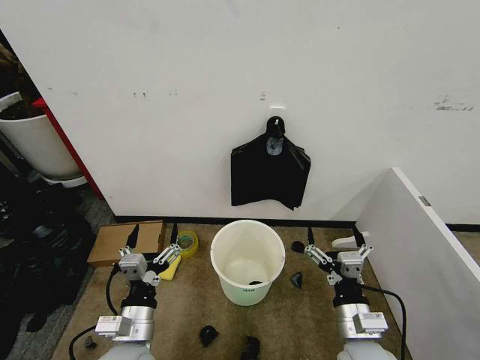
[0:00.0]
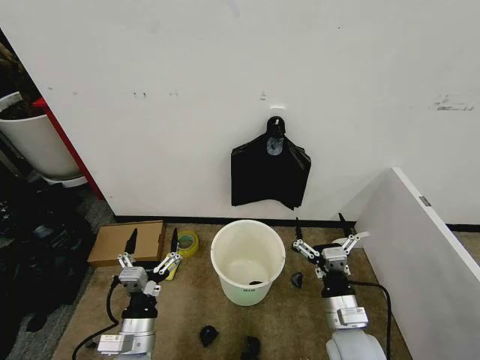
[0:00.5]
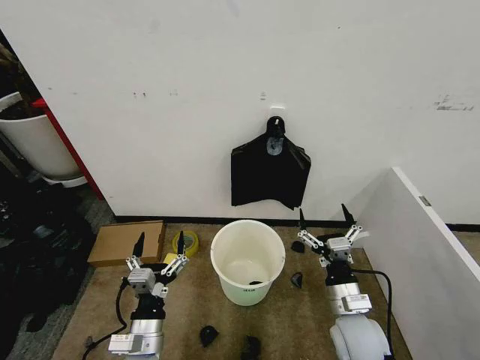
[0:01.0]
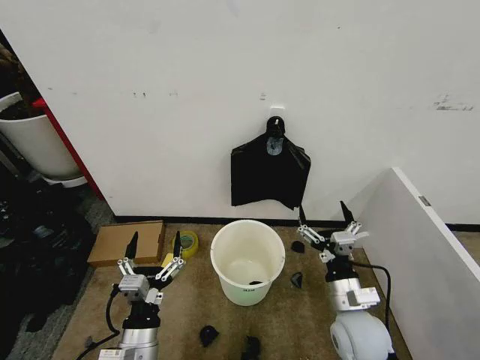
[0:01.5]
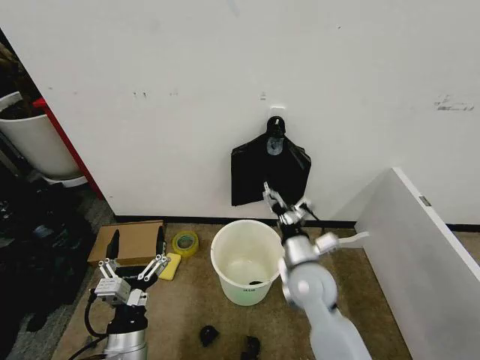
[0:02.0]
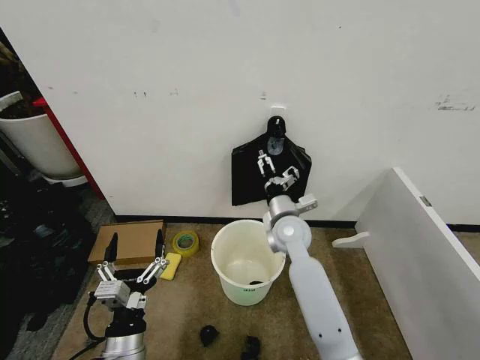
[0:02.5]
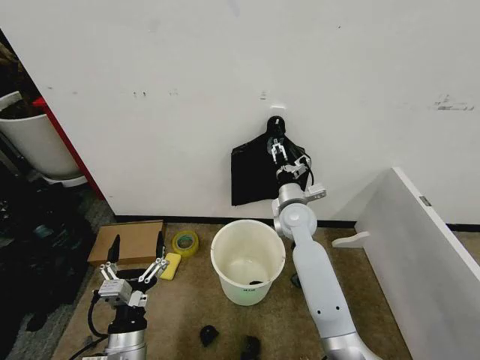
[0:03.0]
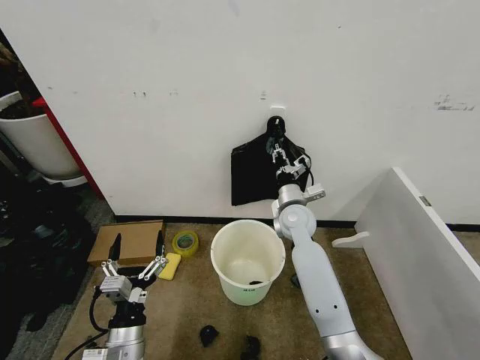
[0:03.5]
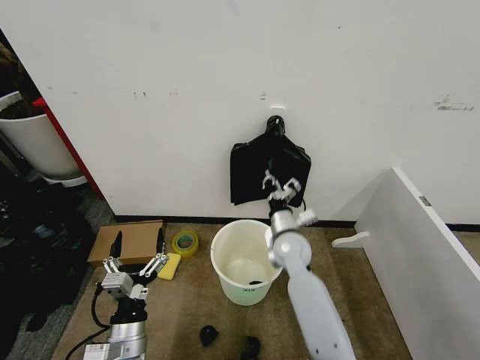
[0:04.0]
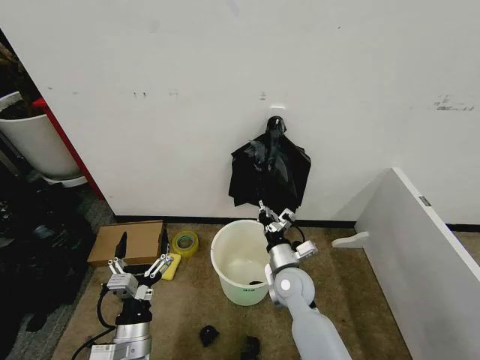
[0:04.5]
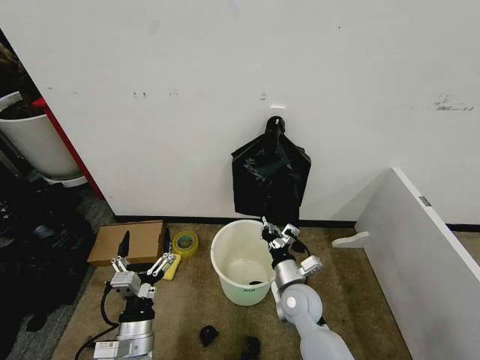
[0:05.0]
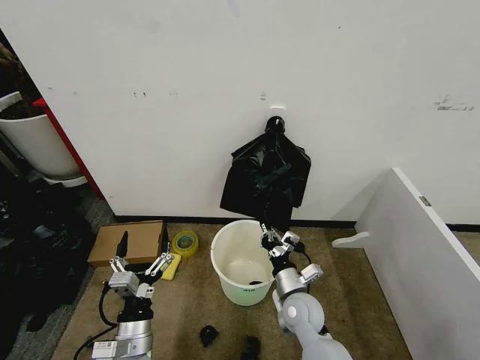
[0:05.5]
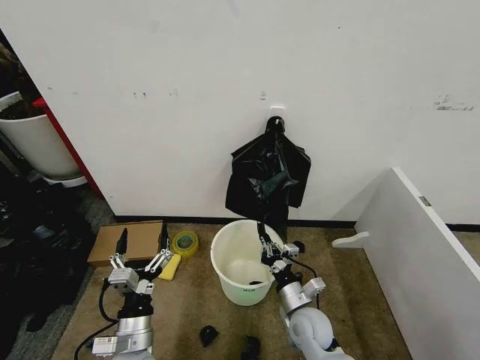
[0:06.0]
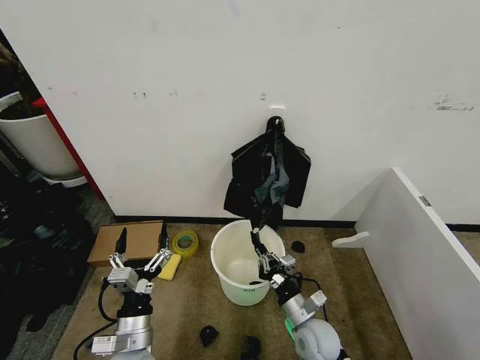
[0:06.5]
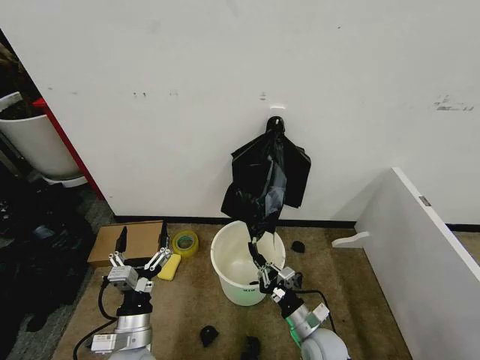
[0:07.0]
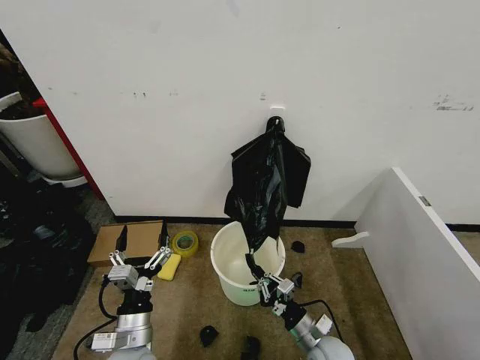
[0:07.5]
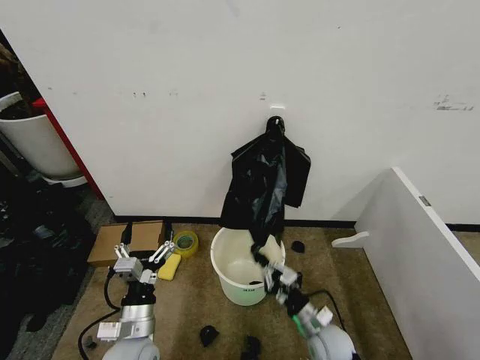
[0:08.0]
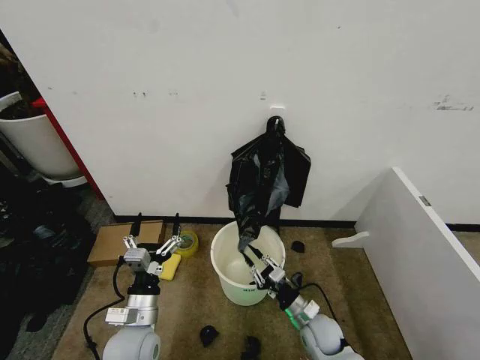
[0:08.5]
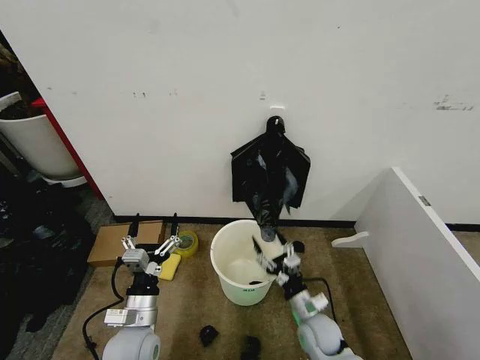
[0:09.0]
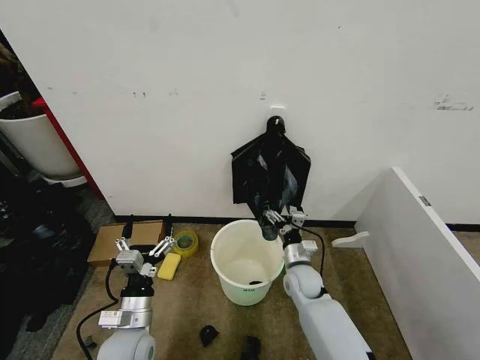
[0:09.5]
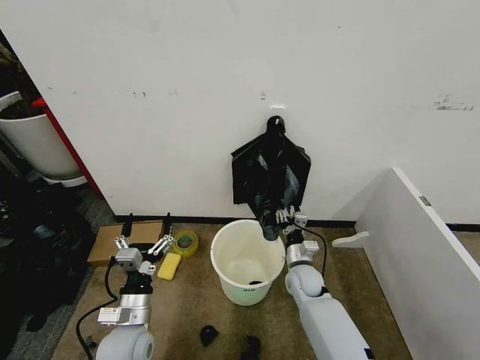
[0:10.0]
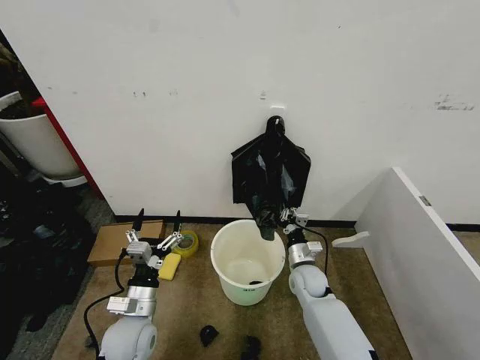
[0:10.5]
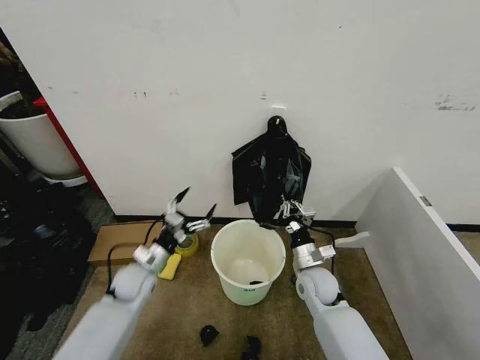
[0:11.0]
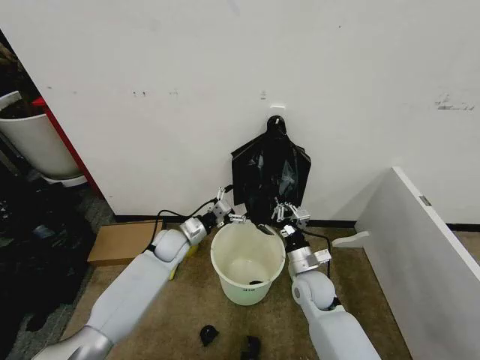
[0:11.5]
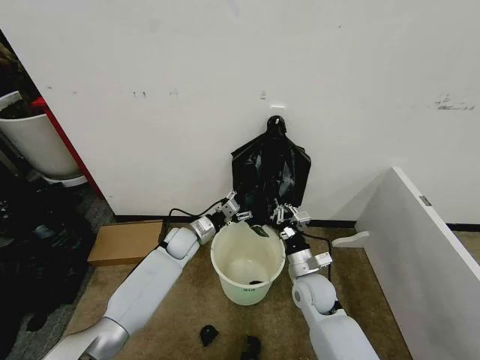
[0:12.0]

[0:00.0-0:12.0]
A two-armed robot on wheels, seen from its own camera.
Task of the whole recording: Place the garbage bag over the trash bin.
0:02.0 to 0:04.0: The right gripper heads forward, covering some 10 cm, and closes its fingers.
0:04.0 to 0:06.0: The right gripper goes about 20 cm backward and downward.
0:06.0 to 0:08.0: The right gripper shifts roughly 5 cm to the right.
0:08.0 to 0:10.0: The right gripper goes some 15 cm forward, and opens up.
0:10.0 to 0:12.0: The left gripper shifts about 25 cm forward. Meanwhile the right gripper is displaced upward and backward by about 10 cm, and closes.

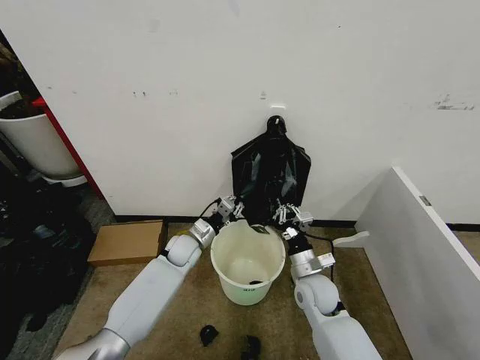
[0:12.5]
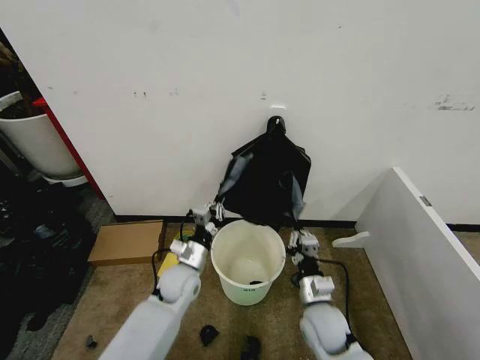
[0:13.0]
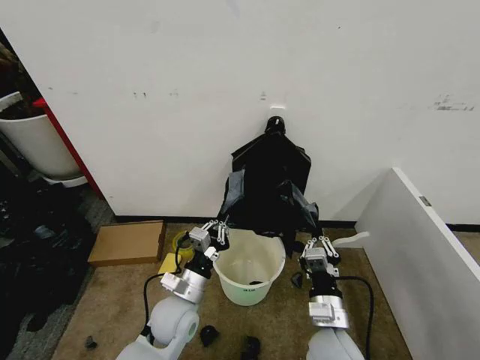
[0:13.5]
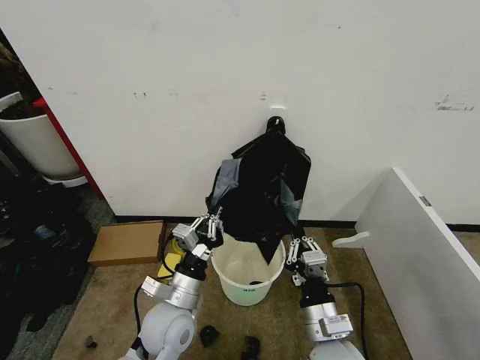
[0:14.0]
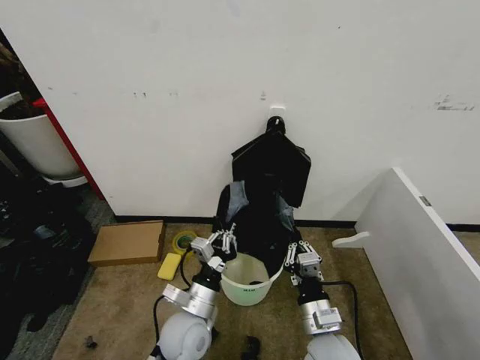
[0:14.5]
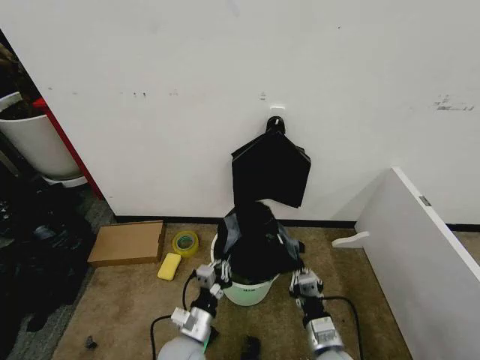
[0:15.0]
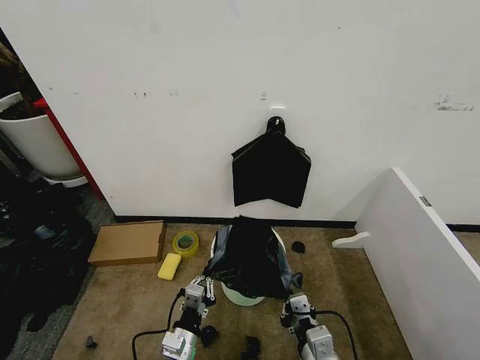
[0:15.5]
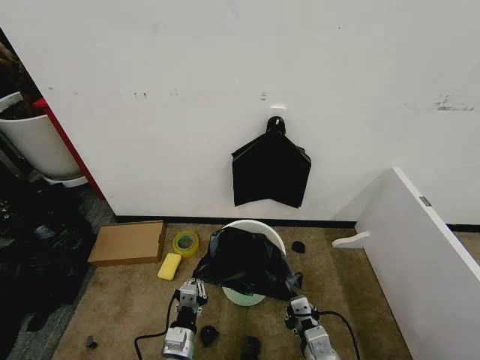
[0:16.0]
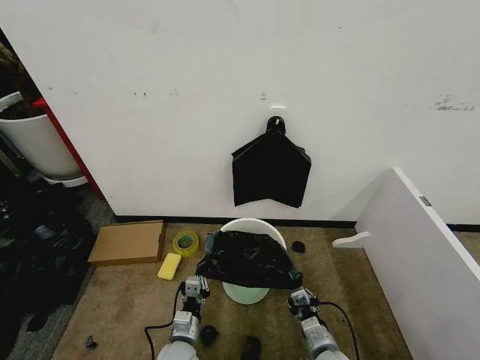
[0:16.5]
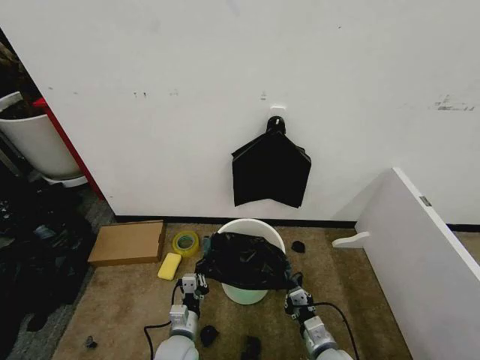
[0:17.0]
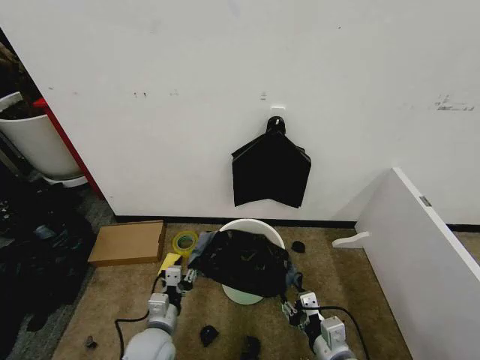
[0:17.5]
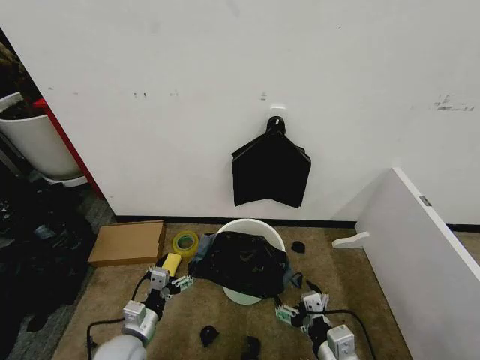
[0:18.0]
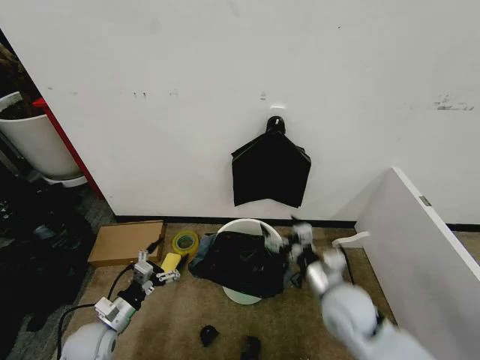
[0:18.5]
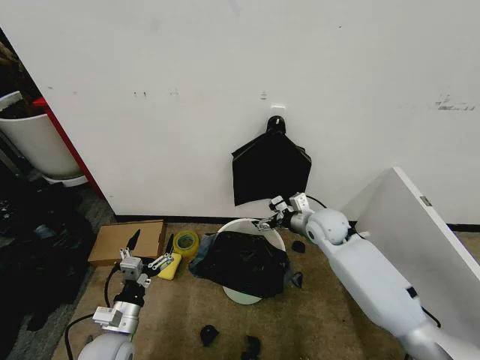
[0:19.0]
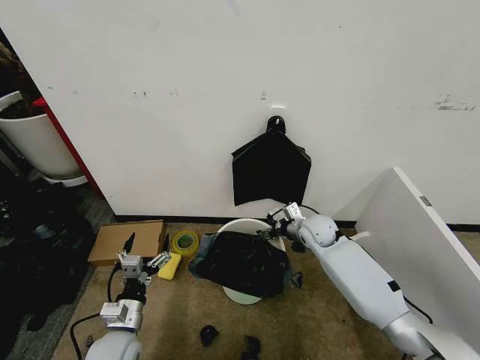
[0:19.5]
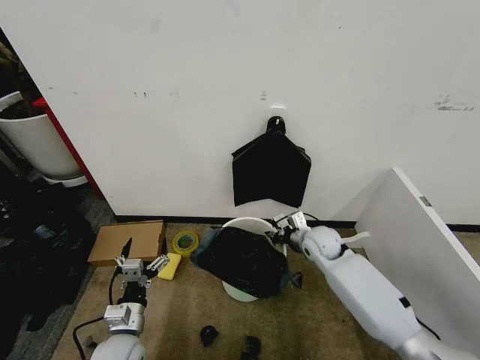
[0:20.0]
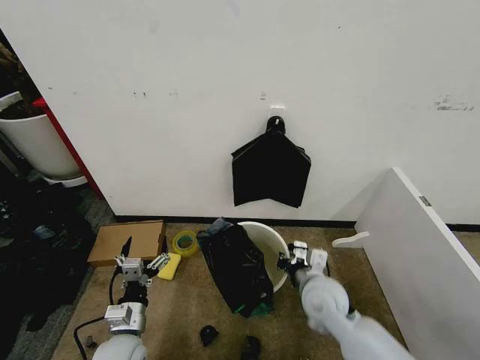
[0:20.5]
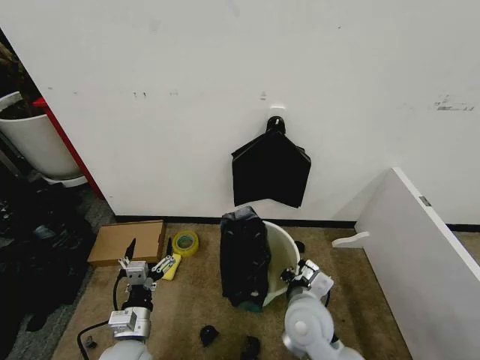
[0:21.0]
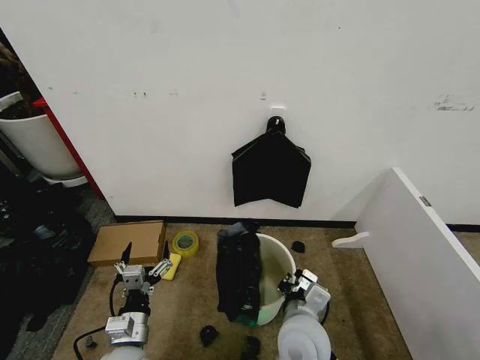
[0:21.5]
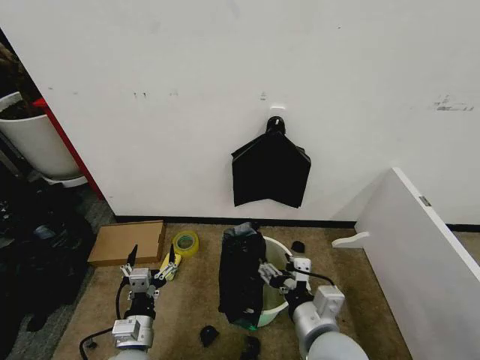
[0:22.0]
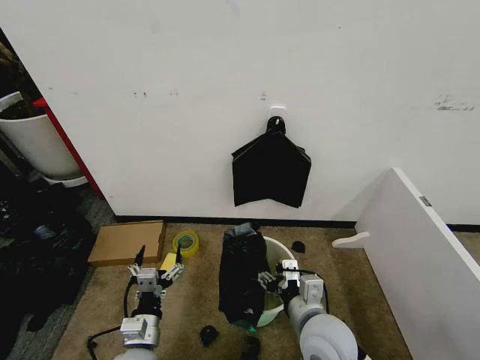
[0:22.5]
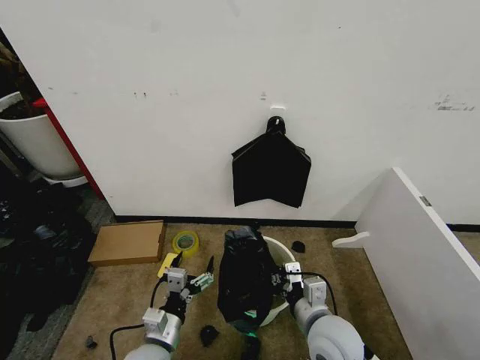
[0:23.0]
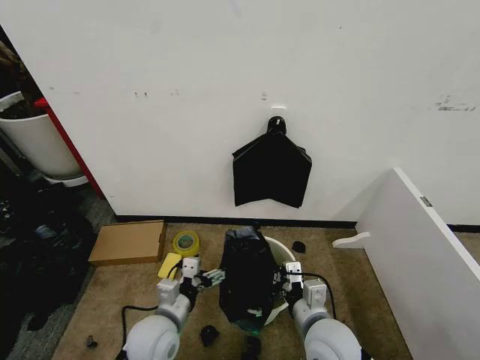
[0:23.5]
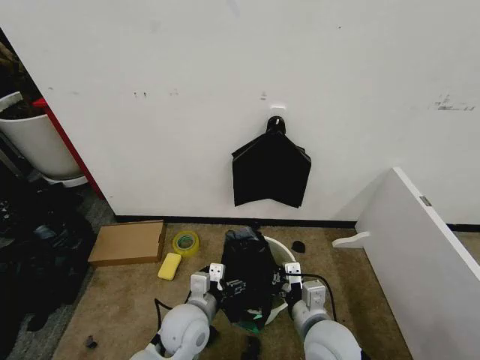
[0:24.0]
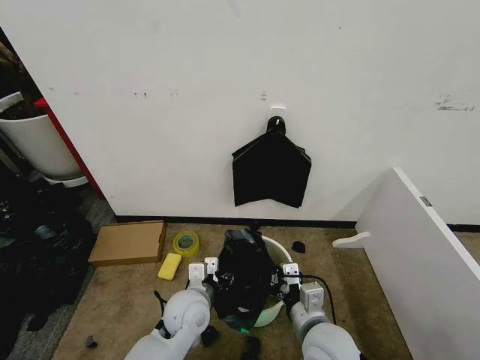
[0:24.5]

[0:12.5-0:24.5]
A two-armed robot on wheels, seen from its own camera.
Task of the whole recording: Place the garbage bag over the trash bin.
0:12.5 to 0:14.5: The right gripper moves backward, approximately 15 cm. Meanwhile the left gripper travels backward by approximately 20 cm.
0:14.5 to 0:16.5: The right gripper swings up and down, about 10 cm each way, with 2 reversals. The left gripper shifts approximately 15 cm downward.
0:16.5 to 0:18.5: The right gripper travels upward and forward by about 15 cm, and opens. Meanwhile the left gripper heads to the left and upward, covering roughly 20 cm, and opens.
0:18.5 to 0:20.5: The left gripper moves to the right, some 10 cm. Meanwhile the right gripper reaches some 25 cm forward, then returns, and closes its fingers.
0:20.5 to 0:22.5: The right gripper heads backward, covering about 10 cm, and opens its fingers.
0:22.5 to 0:24.5: The left gripper goes approximately 15 cm to the right and forward, and closes up. The right gripper closes up.

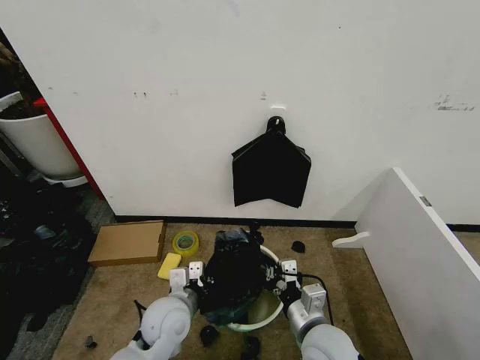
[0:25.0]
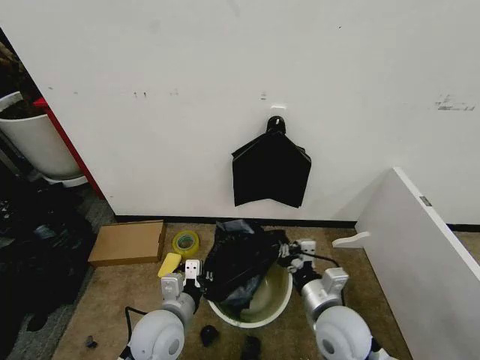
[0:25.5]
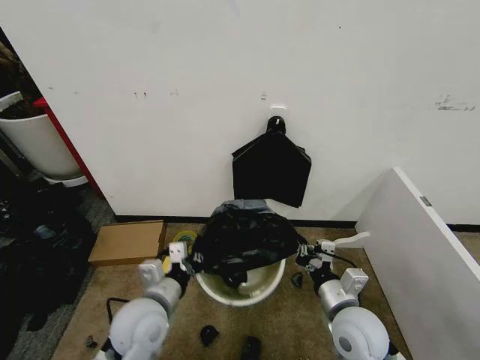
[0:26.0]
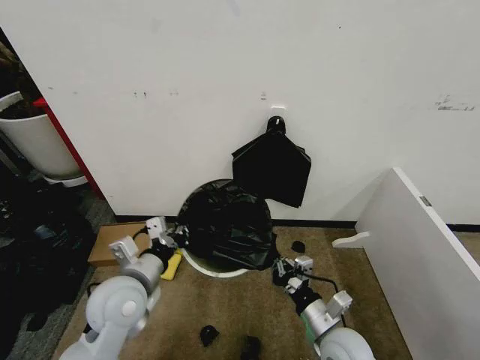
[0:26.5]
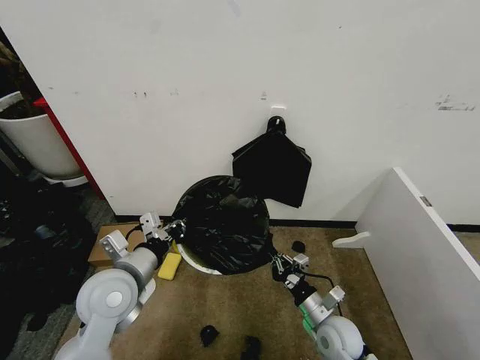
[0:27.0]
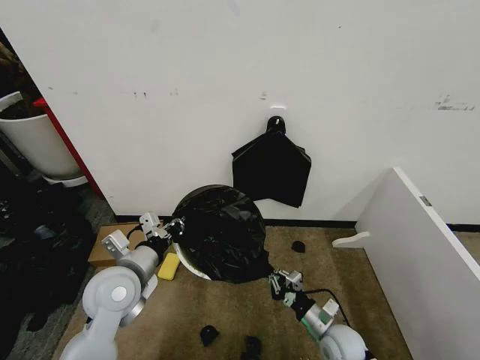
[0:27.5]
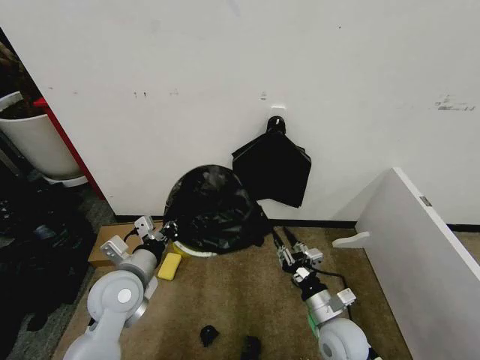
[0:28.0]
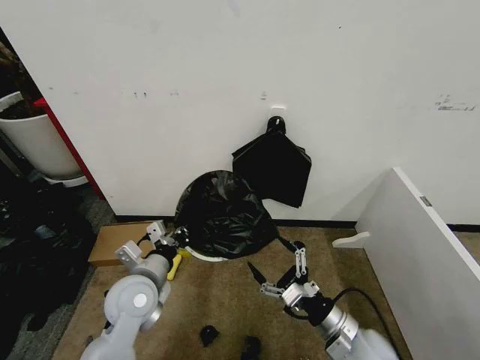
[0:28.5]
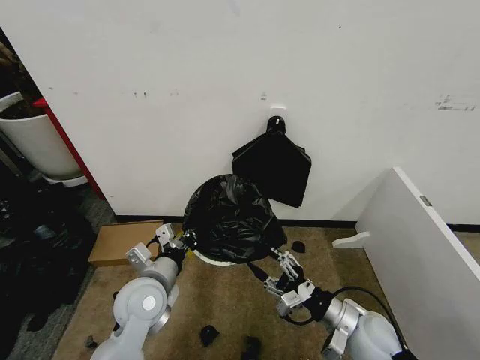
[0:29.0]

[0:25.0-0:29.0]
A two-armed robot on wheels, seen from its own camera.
Task of the whole recording: Place the garbage bag over the trash bin.
0:25.0 to 0:27.0: The left gripper moves upward and to the left, approximately 15 cm; the right gripper travels downward and to the right by some 15 cm.
0:27.0 to 0:29.0: The left gripper heads downward, covering approximately 5 cm. The right gripper is displaced upward by approximately 10 cm, and opens.
